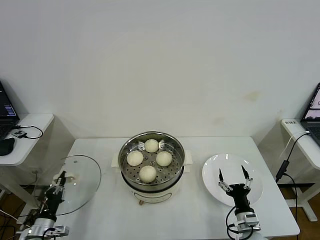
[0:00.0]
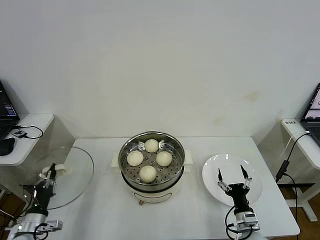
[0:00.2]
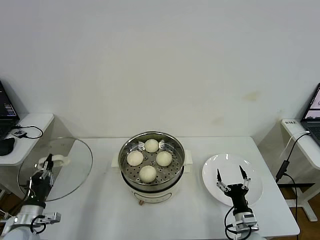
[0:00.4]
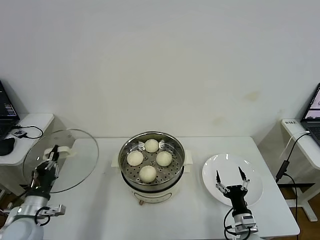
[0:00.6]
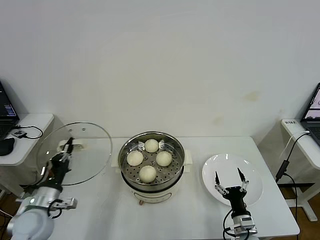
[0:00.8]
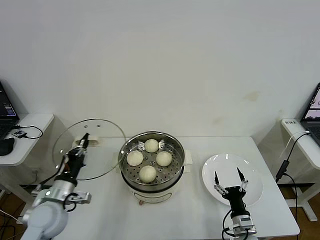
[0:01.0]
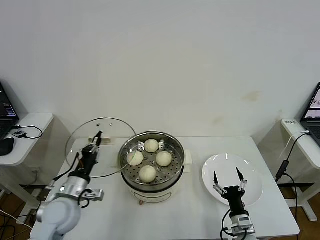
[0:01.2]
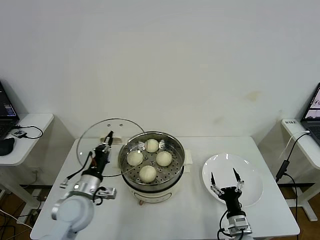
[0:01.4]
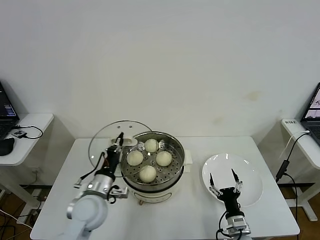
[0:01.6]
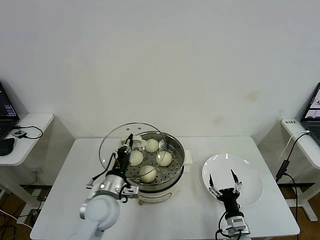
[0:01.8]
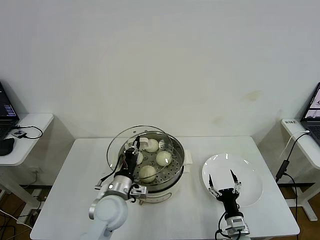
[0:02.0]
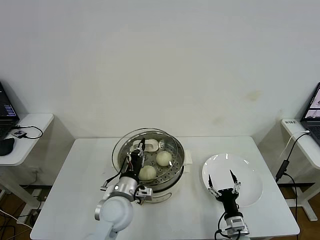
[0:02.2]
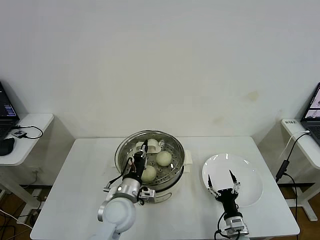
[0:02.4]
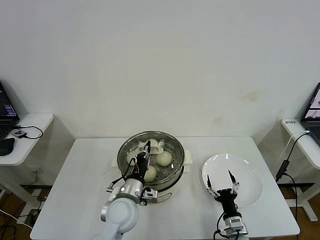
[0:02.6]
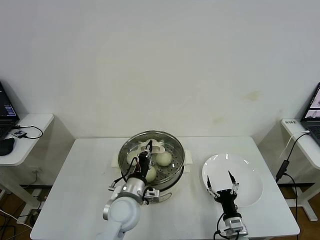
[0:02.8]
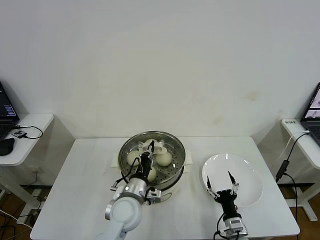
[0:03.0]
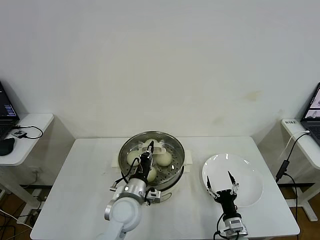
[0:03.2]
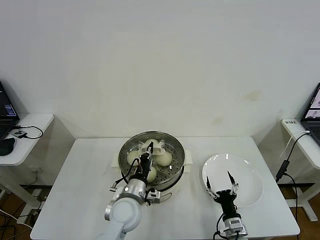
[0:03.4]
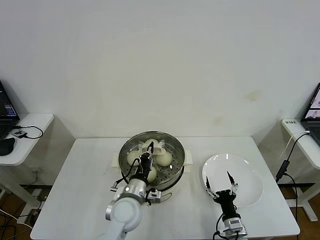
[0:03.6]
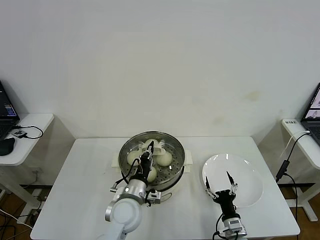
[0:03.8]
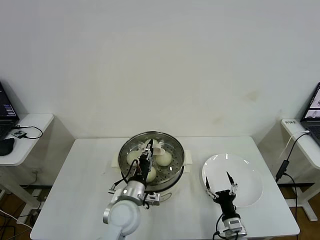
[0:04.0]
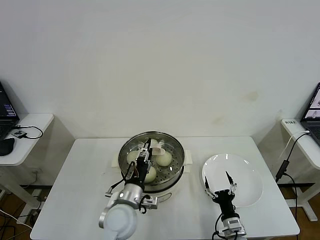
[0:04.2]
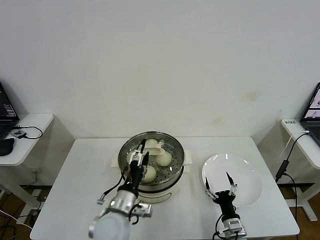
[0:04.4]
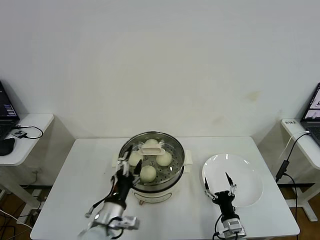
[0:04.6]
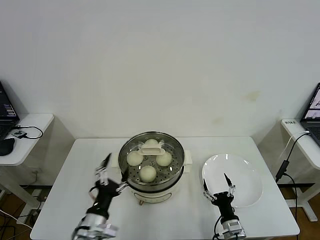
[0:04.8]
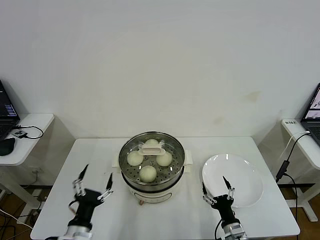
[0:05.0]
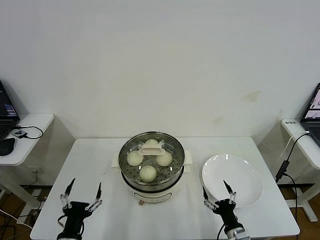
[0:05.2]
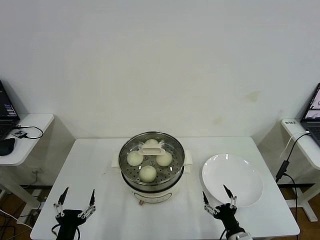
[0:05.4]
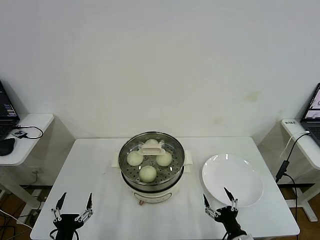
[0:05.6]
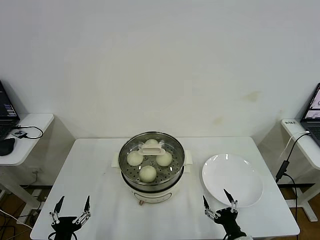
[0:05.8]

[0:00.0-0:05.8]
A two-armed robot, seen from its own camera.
Step, 0:00.0 to 0:04.0: Place the pot lid on the steamer with left gripper.
0:00.0 to 0:01.4: The left gripper is displaced to the right, upward and forward by roughly 25 cm.
0:01.4 to 0:02.8: The left gripper heads to the right, covering about 15 cm.
0:02.8 to 0:04.4: The left gripper opens up.
0:04.4 to 0:05.8: The right gripper travels backward by some 5 cm; the left gripper travels to the left, backward and downward by about 25 cm.
